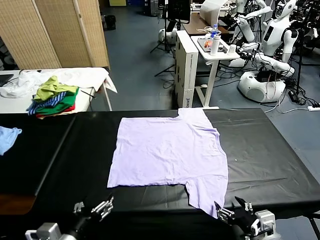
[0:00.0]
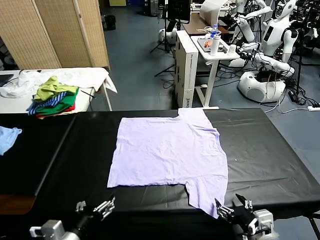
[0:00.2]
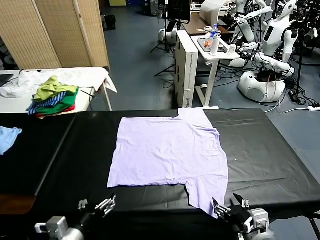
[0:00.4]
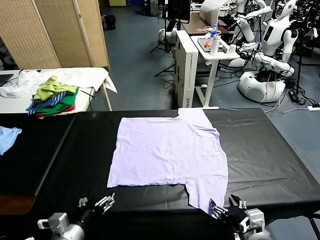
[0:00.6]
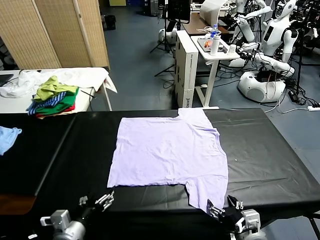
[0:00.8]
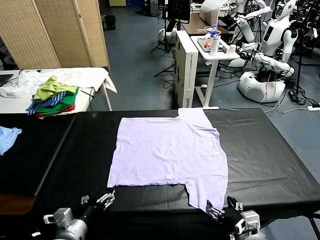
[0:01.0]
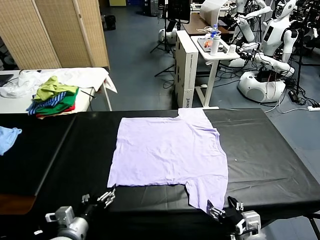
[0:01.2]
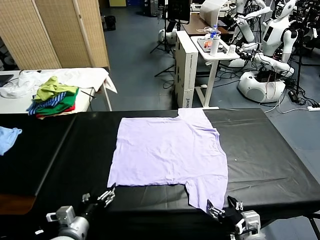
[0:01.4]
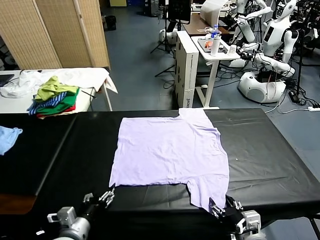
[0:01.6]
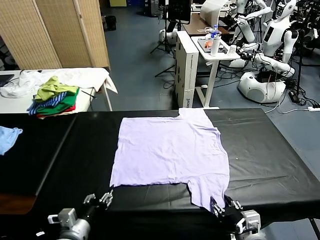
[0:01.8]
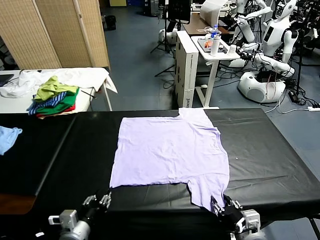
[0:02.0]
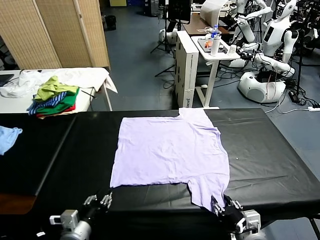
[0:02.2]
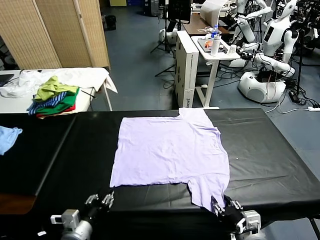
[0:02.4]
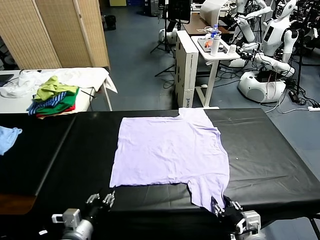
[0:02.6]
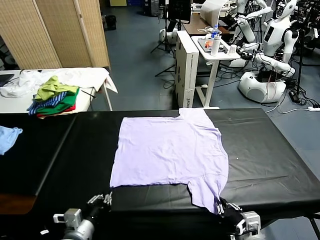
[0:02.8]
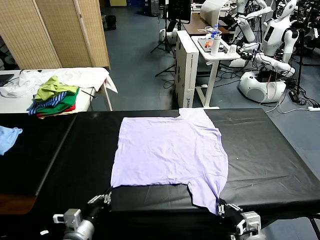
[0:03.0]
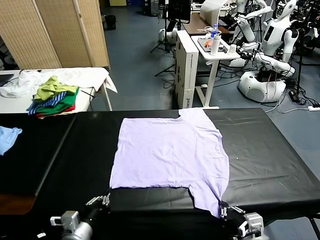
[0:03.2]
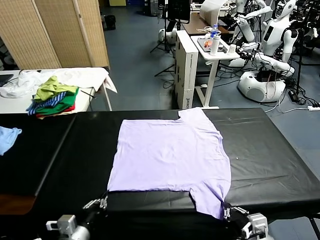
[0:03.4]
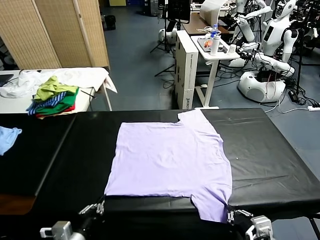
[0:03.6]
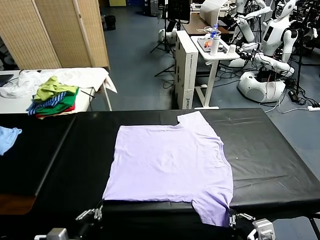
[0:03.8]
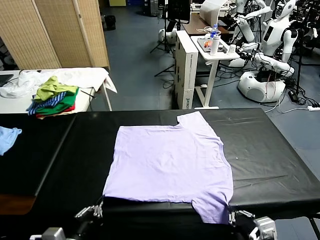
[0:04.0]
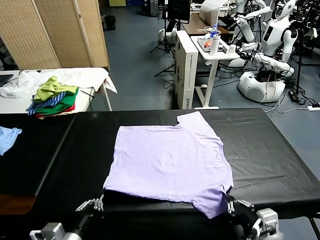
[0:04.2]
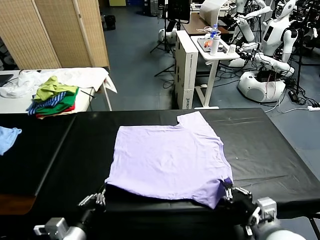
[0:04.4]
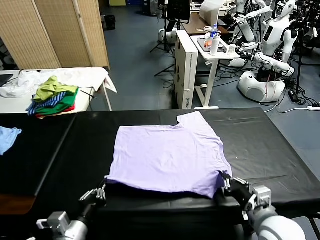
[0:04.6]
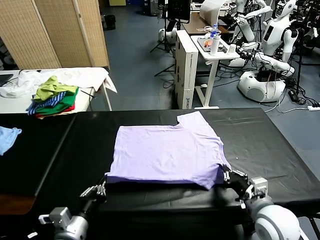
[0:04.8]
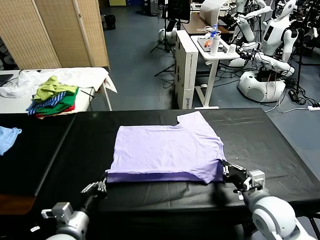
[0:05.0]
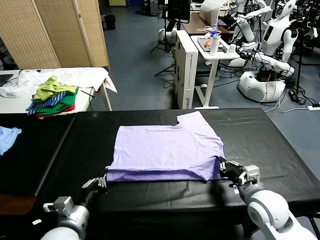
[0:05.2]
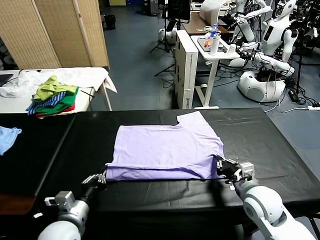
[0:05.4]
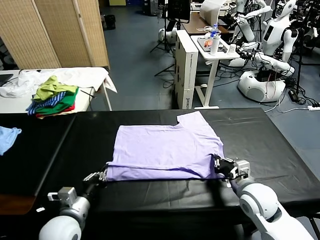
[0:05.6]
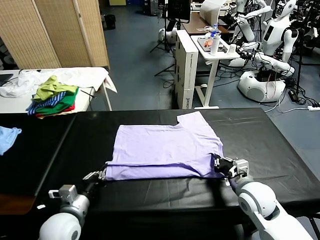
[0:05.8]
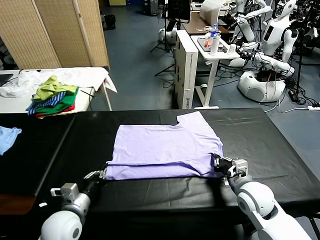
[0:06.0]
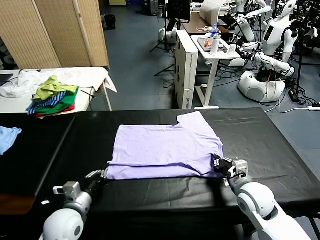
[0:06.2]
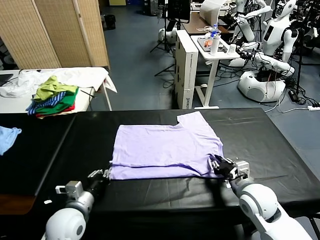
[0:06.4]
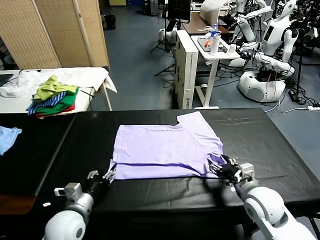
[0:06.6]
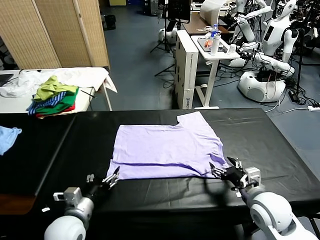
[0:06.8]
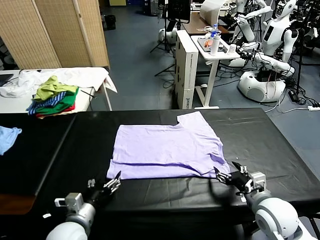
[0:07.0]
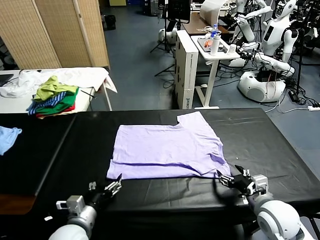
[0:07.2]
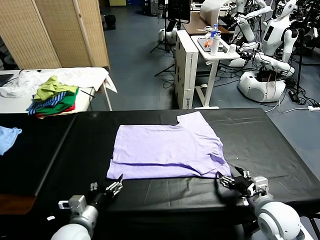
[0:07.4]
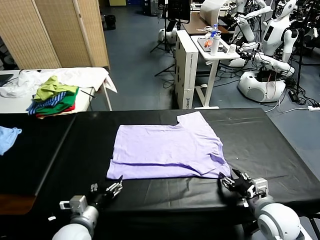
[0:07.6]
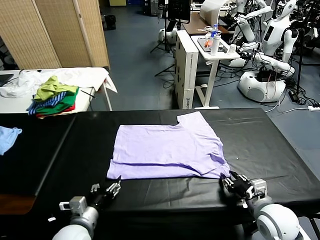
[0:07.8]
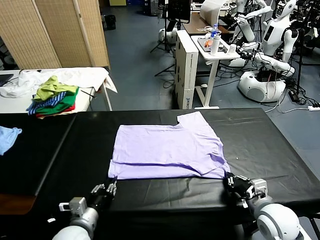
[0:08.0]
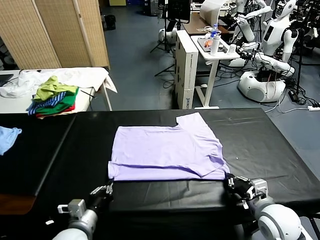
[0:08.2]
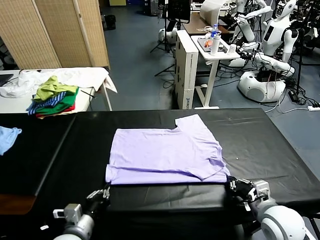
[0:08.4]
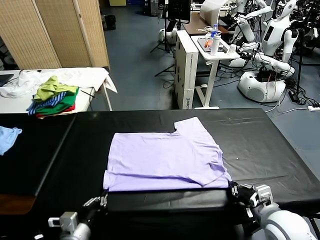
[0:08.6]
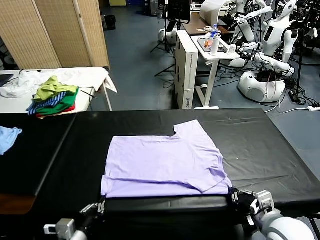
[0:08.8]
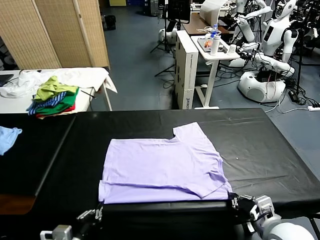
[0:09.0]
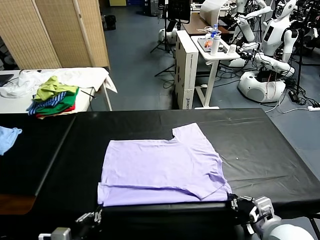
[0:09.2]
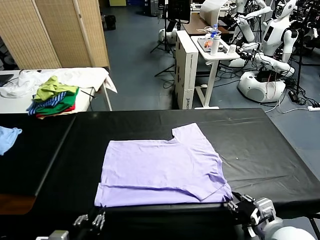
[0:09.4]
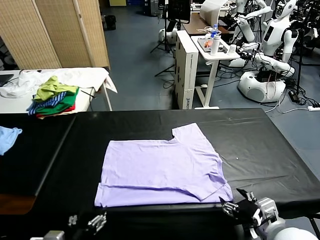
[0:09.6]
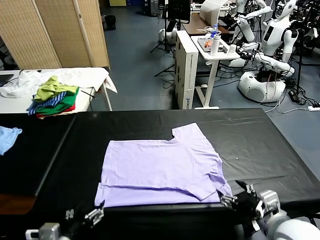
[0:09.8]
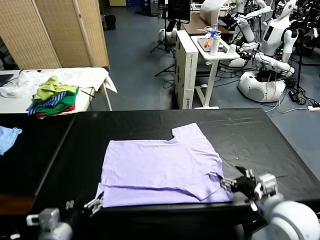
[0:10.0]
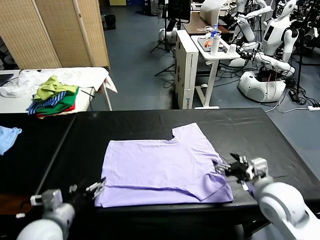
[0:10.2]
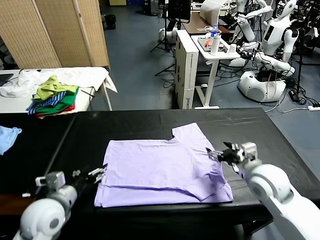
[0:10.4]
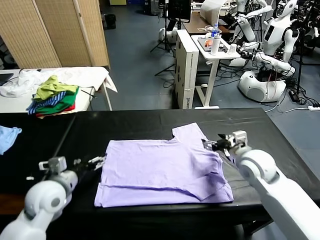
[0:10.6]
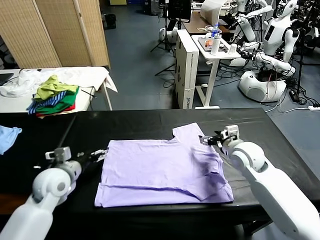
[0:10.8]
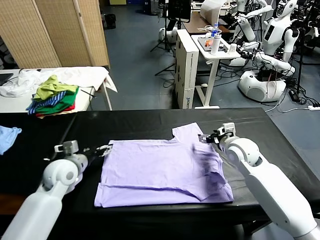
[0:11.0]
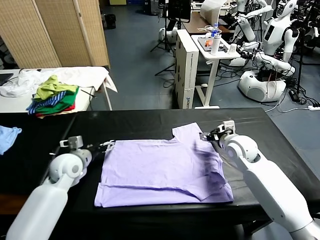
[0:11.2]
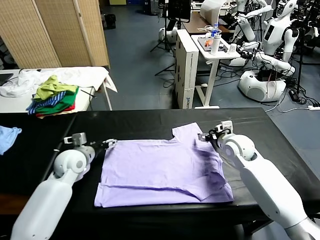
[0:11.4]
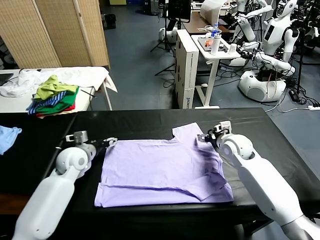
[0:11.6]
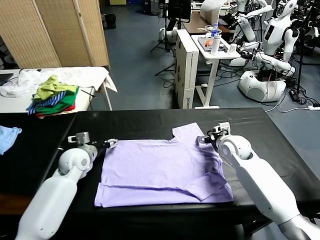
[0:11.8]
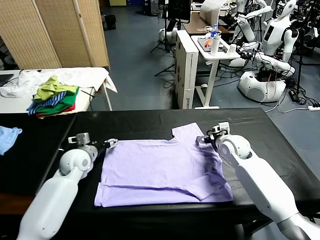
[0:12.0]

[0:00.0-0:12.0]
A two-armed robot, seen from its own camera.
Task of the whole recording: fold and organize the clothes.
Step, 0.0 to 3.2 s: use both grippers simultaneously to clamp the lower edge of the clothing fabric.
Step, 3.4 to 6.6 s: use both grippers to drag the lower edge of the fabric forward and fold it over the upper edge.
Step, 6.8 to 9.4 s: Drag the clothes downward with both gripper.
1.6 to 3.0 s: The left gripper closes. Meanwhile the right gripper closes up.
3.0 to 4.4 s: The right gripper shifts roughly 10 cm forward.
4.4 to 6.0 s: The grippers both shift forward by roughly 10 cm. The right gripper opens.
6.0 to 7.6 s: The left gripper opens up, while the right gripper goes approximately 5 cm backward, and closes.
7.6 to 9.0 s: Both grippers travel together backward, approximately 10 cm. The left gripper closes its fingers; the right gripper opens its fingers.
9.0 to 10.4 s: The two grippers go some 20 cm forward. The right gripper opens its fingers. Meanwhile the left gripper opens.
10.4 to 12.0 s: Both grippers move forward and downward, roughly 10 cm.

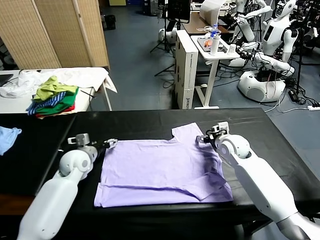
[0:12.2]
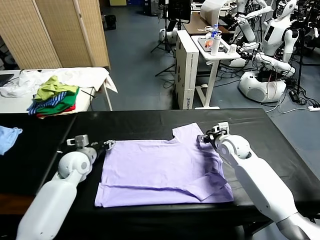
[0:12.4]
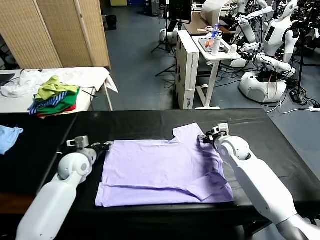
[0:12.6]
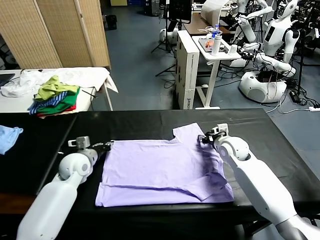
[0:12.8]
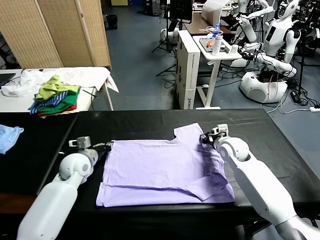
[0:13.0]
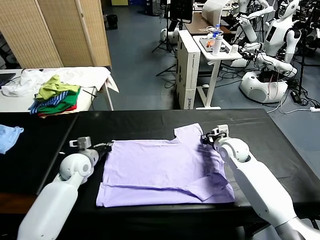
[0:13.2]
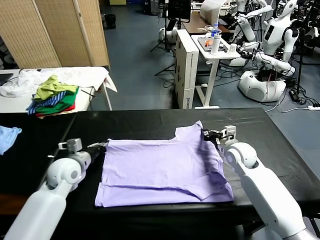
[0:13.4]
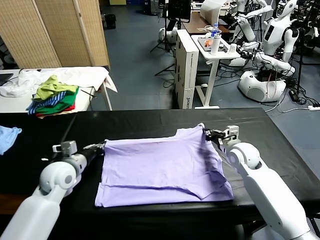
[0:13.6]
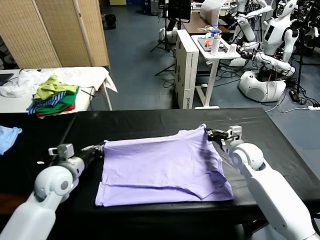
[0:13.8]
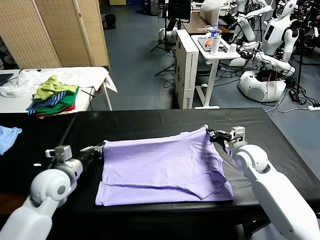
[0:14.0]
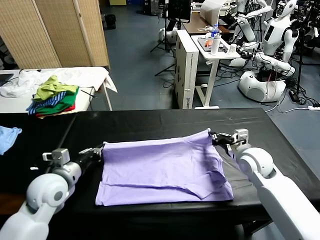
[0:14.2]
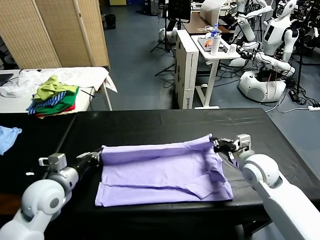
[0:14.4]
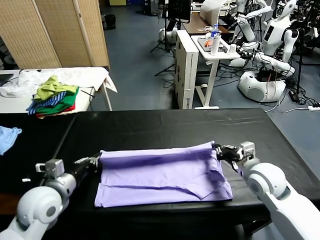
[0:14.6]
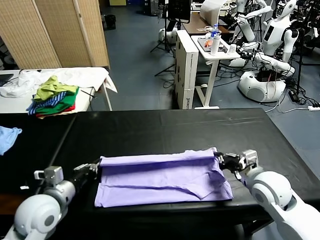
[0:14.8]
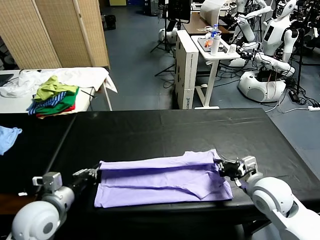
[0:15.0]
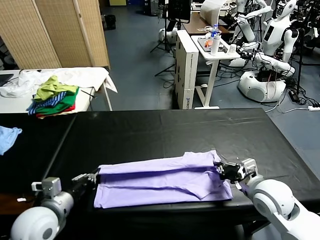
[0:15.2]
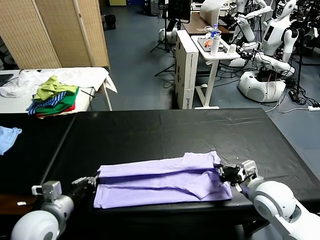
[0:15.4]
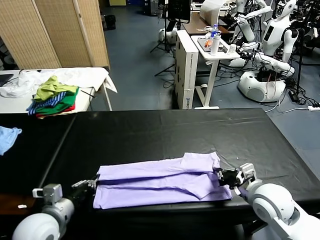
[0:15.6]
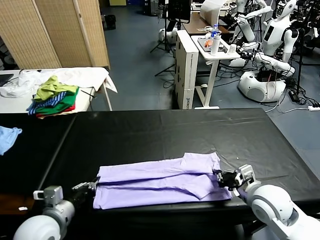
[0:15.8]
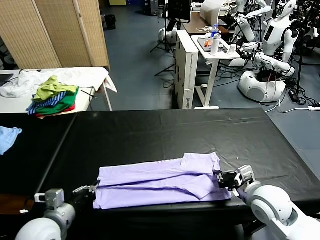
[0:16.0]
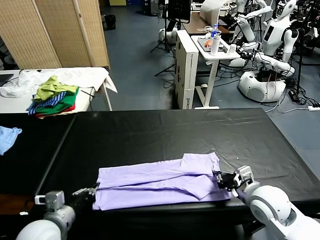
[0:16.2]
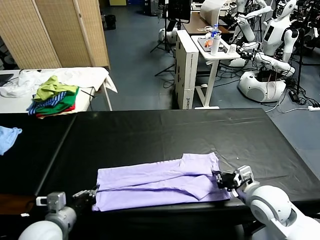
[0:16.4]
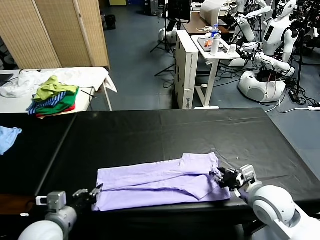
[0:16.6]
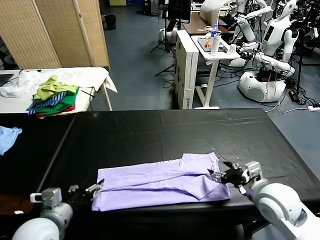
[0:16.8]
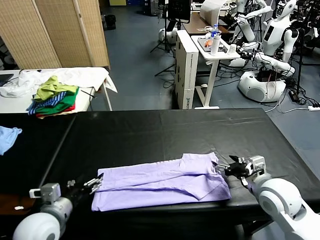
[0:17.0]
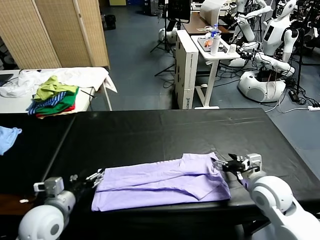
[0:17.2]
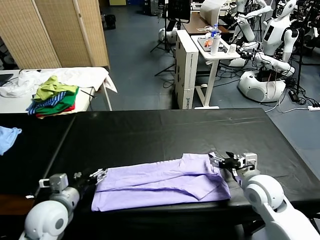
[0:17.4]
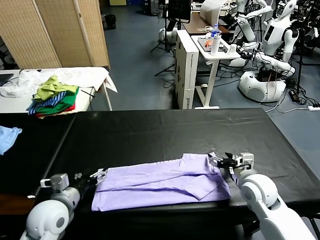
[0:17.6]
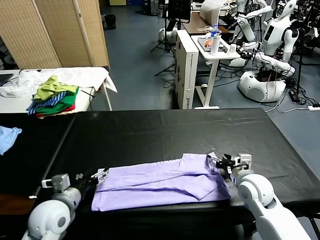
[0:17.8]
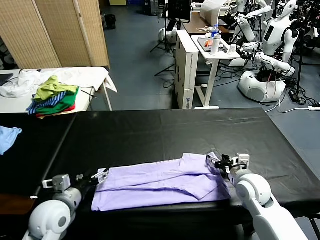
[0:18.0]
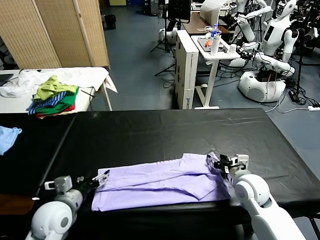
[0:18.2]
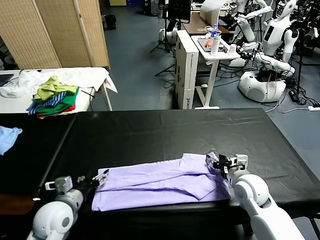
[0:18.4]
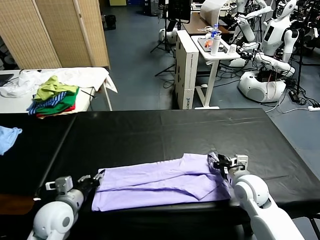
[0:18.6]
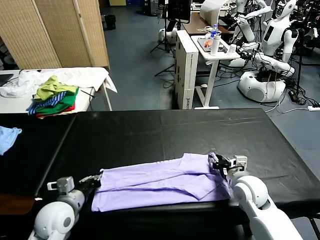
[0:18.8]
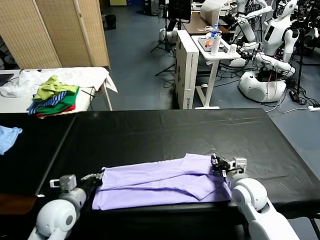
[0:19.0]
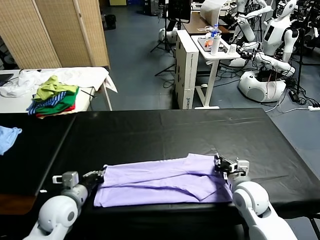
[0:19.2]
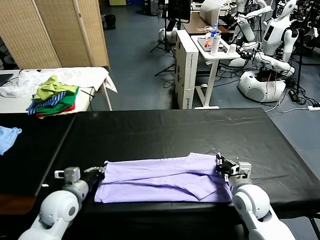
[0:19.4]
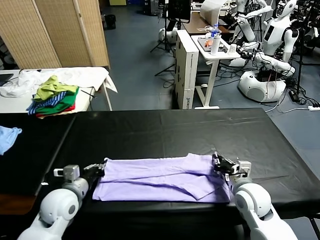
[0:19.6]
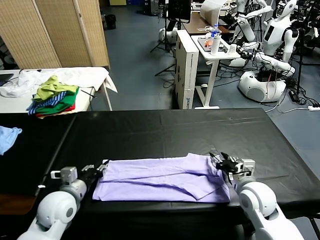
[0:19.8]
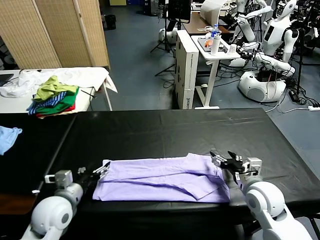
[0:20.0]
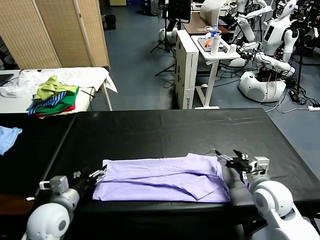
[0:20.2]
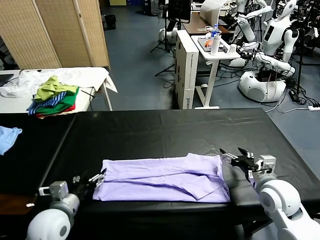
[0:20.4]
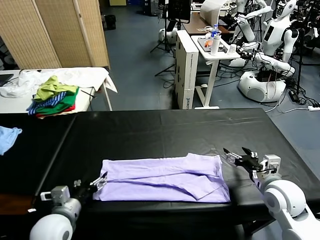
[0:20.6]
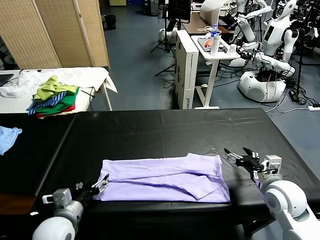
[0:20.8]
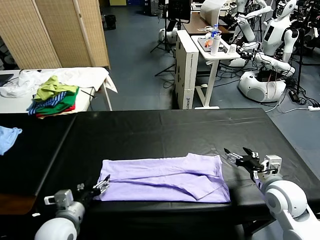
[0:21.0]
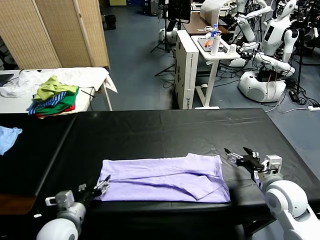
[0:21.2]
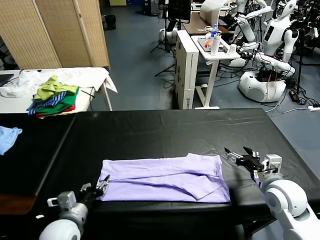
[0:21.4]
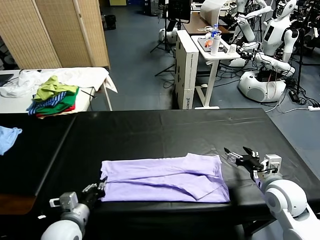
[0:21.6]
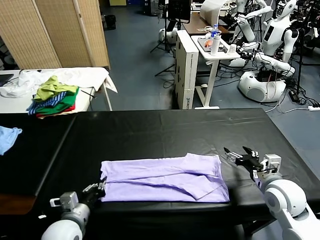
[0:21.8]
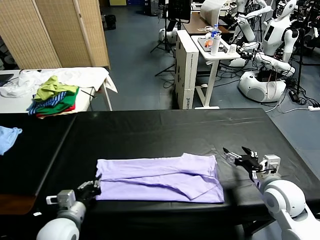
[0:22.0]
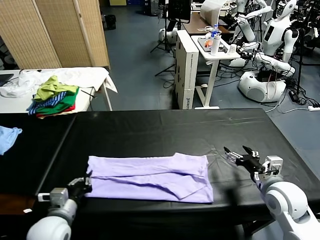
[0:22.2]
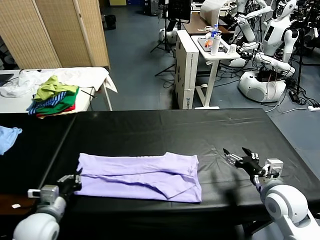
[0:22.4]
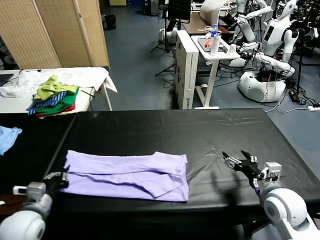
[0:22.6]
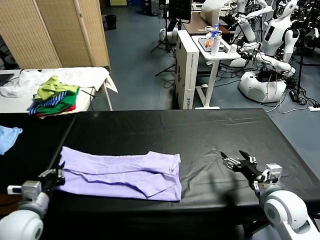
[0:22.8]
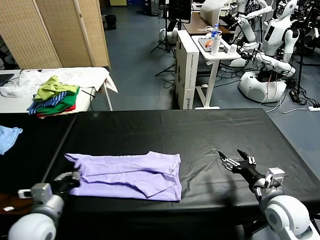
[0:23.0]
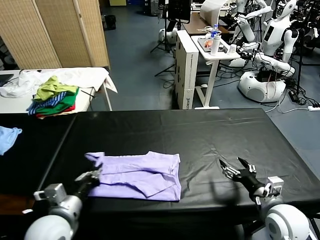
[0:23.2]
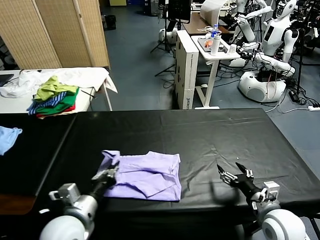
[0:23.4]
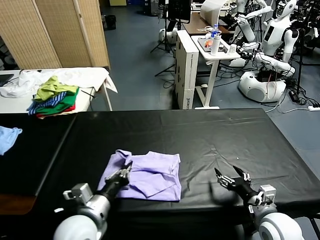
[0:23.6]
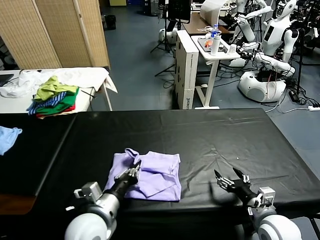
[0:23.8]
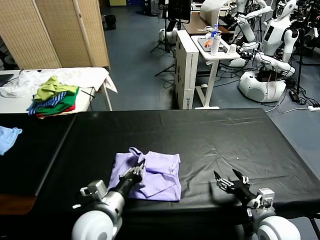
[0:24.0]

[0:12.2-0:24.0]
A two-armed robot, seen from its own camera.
Task of the whole recording: fold and organize the clothes.
Step, 13.4 to 16.6 s: use both grippers to drag the upper edge of the fabric backward and fold it over the lower edge.
Step, 16.8 to 21.8 s: use the left gripper to clamp the left edge of the fabric.
12.2 to 13.6 s: The right gripper closes its fingers; the left gripper closes up.
13.6 to 15.2 s: The two grippers go roughly 15 cm backward.
15.2 to 16.6 s: The left gripper ends up roughly 5 cm from where it was.
16.6 to 18.2 s: The two grippers go some 5 cm forward. The left gripper opens its fingers. The right gripper opens up.
18.2 to 19.6 s: The left gripper closes its fingers. Meanwhile the right gripper closes.
19.6 to 21.0 s: The left gripper moves backward, some 5 cm, and opens, while the right gripper travels to the right and upward by approximately 10 cm, and opens up.
21.0 to 22.6 s: The left gripper closes.
22.6 to 24.0 s: The right gripper goes roughly 10 cm backward and downward. The left gripper heads to the right, covering approximately 15 cm.
